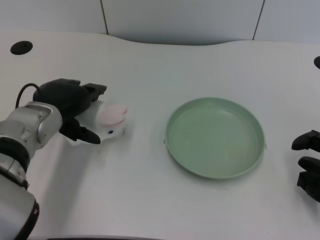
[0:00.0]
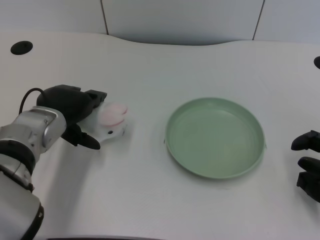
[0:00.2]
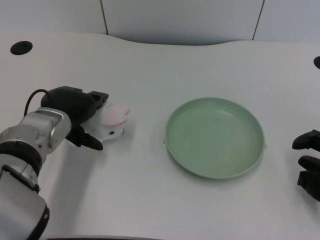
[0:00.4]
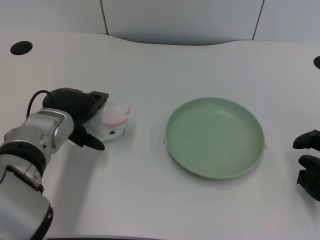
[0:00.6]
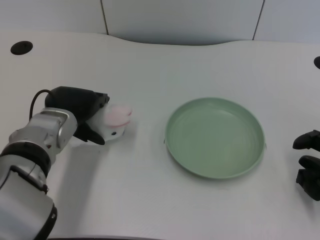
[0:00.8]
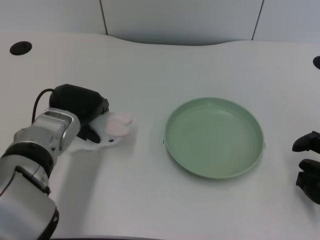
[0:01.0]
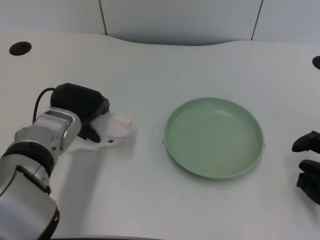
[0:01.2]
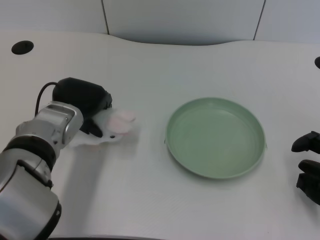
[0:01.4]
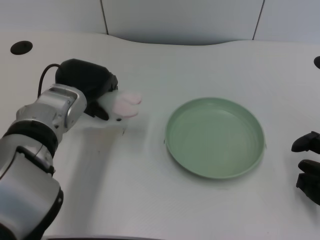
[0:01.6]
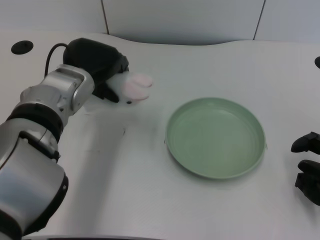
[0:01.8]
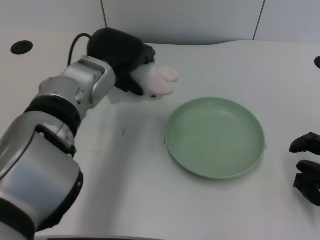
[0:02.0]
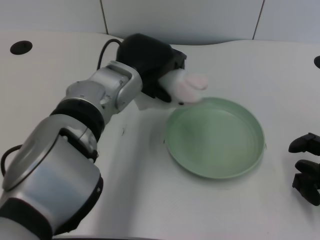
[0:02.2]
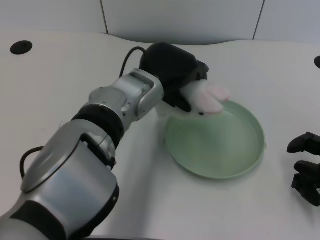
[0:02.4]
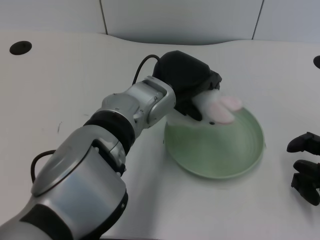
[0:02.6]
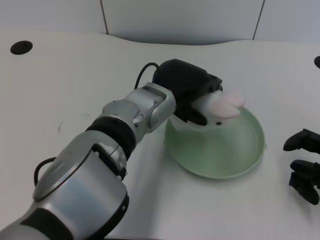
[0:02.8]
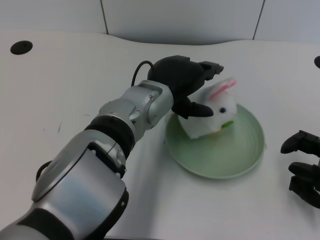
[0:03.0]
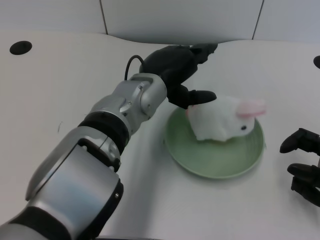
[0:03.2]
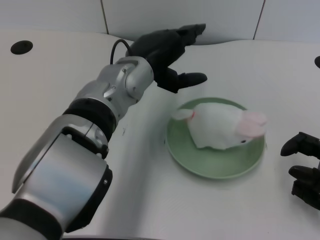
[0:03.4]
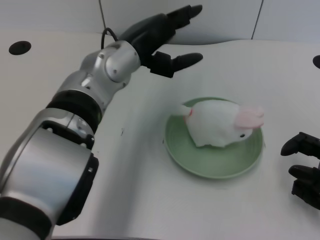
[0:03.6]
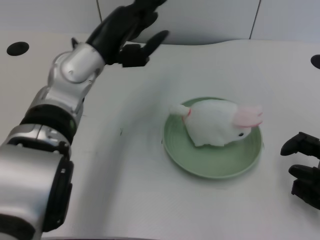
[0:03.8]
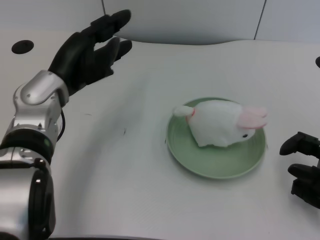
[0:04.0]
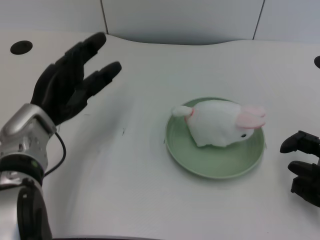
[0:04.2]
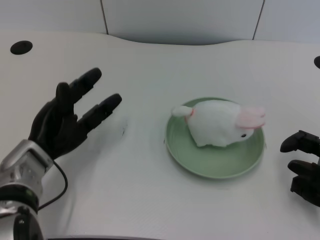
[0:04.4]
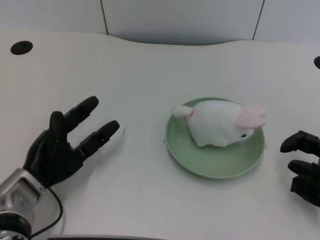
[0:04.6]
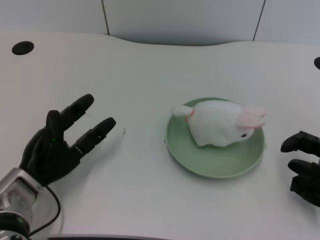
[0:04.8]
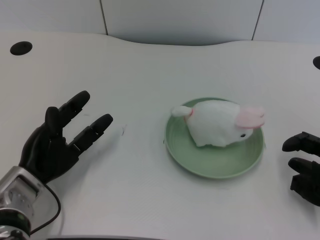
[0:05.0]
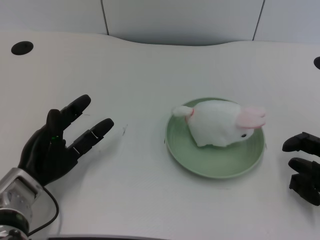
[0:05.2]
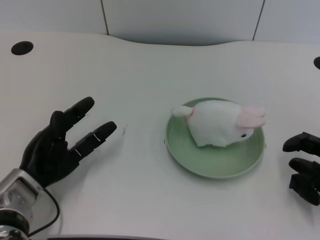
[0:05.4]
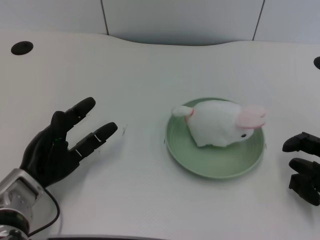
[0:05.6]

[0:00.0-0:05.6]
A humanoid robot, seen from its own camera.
Task of the whole recording: pick up the rabbit doll from the table and place it on the plate.
Step, 0:01.6 to 0:03.0: Place the rabbit doll into the plate with the left gripper.
0:00.0 to 0:01.4: The hands move only a little.
0:01.4 to 0:02.8: The left hand shifts about 15 cm to the right.
0:02.8 to 0:04.2: The left hand travels to the left by approximately 20 cm.
0:04.2 to 0:05.6: The left hand shifts some 10 cm downward and backward.

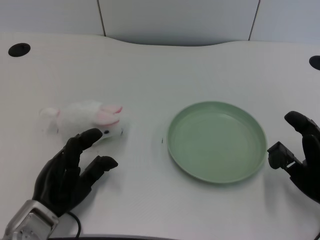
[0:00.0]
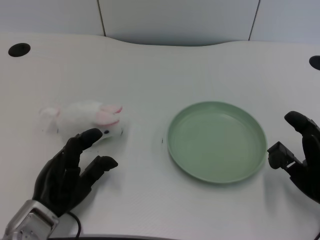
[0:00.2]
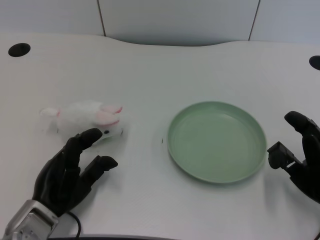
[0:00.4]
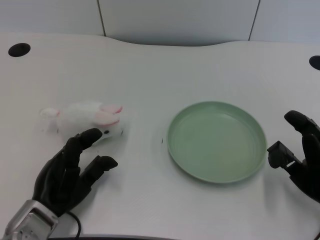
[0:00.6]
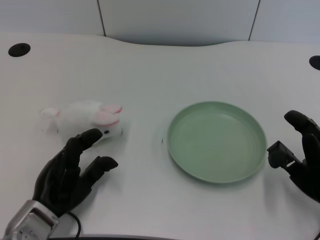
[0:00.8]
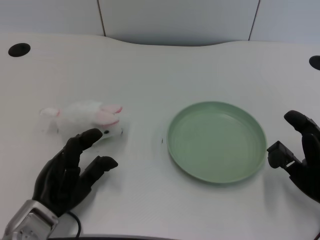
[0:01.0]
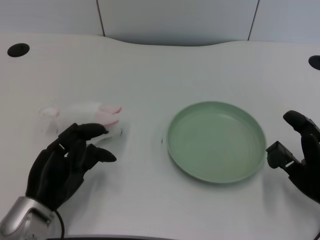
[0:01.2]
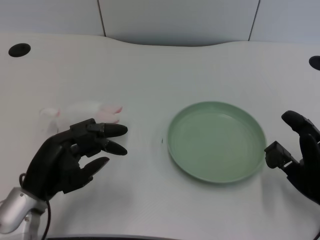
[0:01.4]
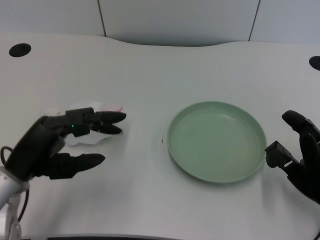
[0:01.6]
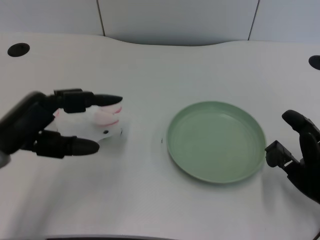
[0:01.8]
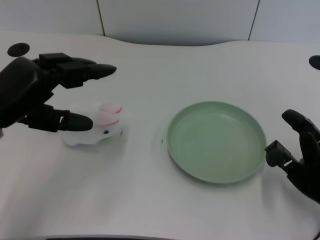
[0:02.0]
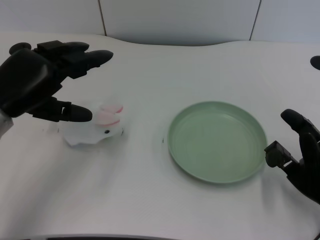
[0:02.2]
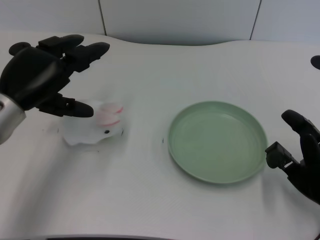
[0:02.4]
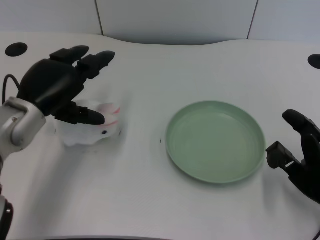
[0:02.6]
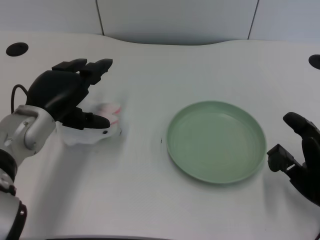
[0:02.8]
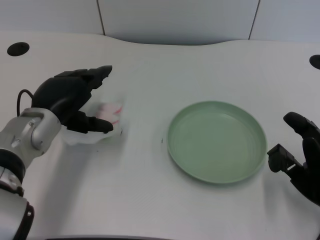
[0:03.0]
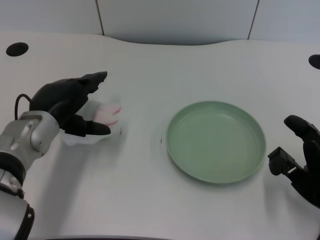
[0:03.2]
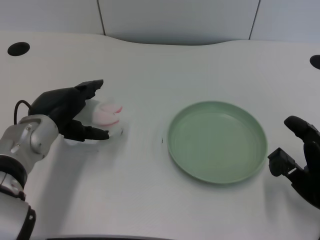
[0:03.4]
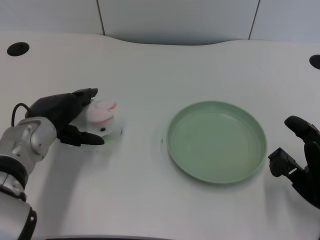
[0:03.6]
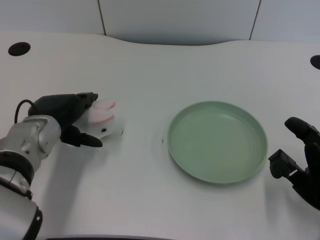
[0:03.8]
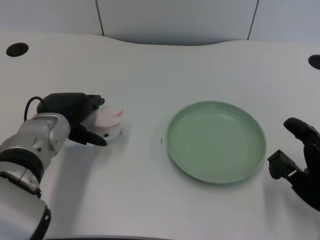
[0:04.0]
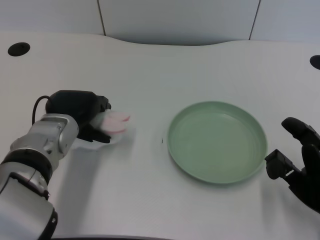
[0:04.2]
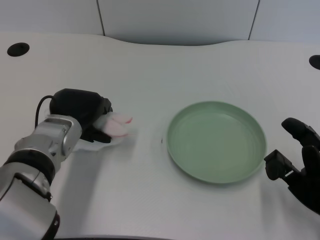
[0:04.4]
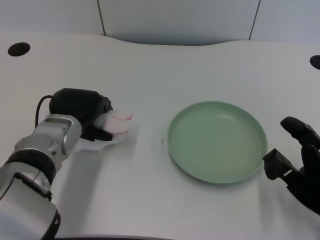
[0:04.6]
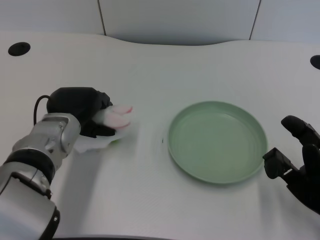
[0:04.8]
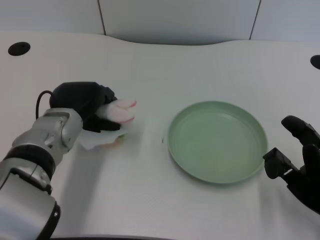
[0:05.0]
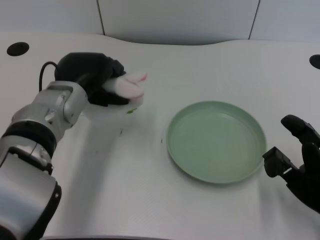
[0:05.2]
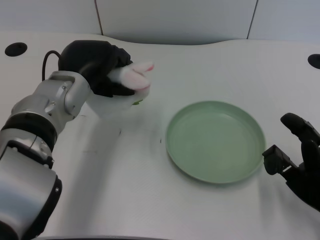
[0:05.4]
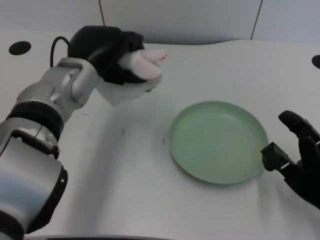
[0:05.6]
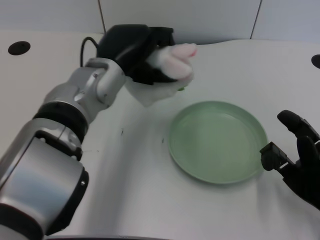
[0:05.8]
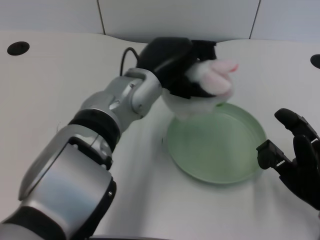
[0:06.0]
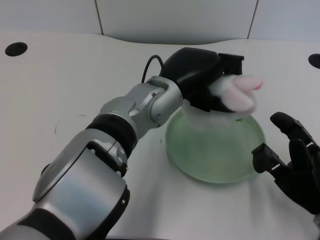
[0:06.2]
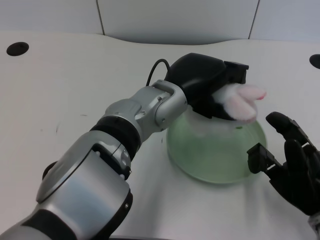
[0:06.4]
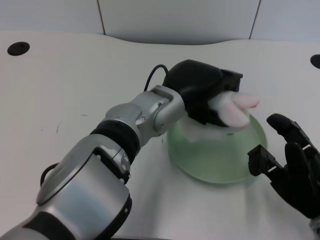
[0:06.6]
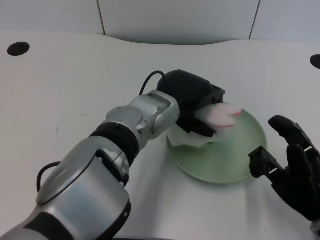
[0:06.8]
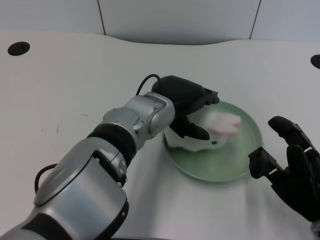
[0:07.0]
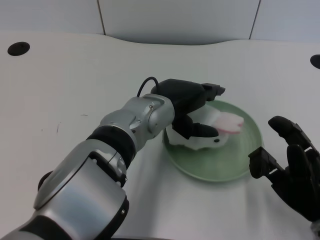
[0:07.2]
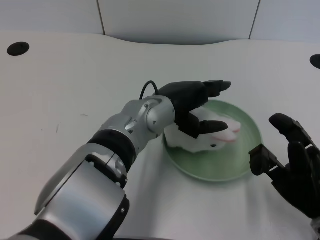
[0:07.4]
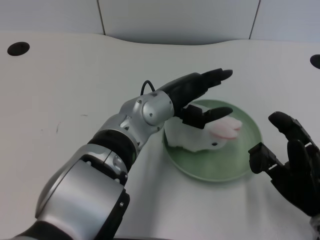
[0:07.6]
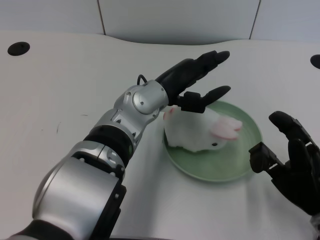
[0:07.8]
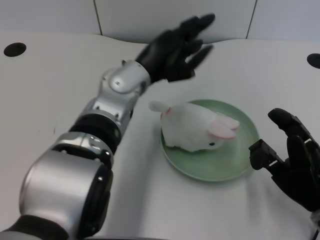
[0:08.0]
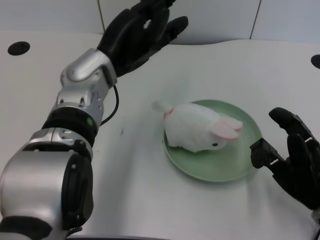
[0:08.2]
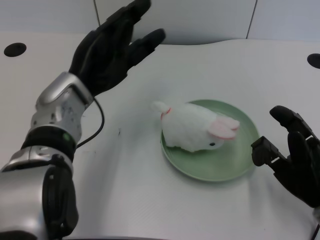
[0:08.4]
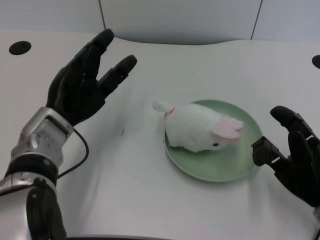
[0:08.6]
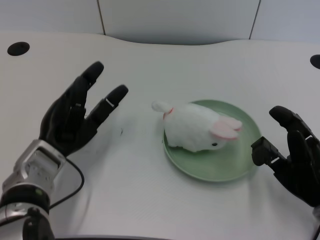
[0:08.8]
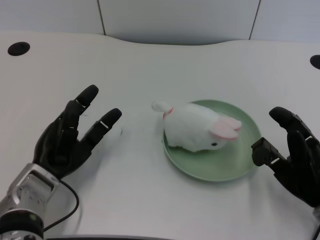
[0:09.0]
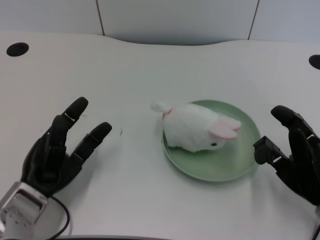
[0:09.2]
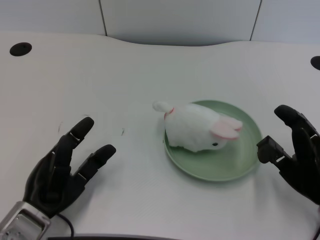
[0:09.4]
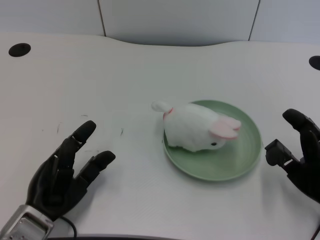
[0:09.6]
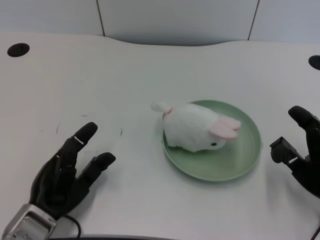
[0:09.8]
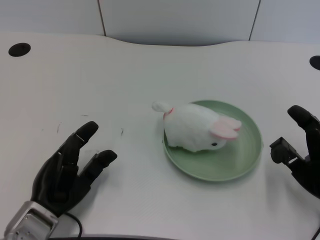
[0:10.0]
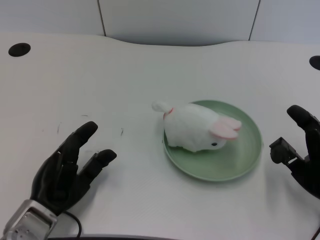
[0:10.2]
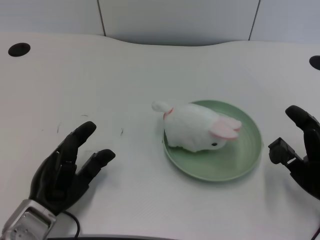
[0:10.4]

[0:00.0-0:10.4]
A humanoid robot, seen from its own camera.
Task of the whole recording: pick up the rabbit doll from the table and place it on the plate.
Step, 0:01.2 to 0:05.0: Grasp the rabbit doll with the left gripper.
Step, 0:05.2 to 0:07.2: Place the rabbit doll into the plate with the left gripper.
0:01.4 to 0:03.0: The left hand travels forward by roughly 10 cm.
0:03.0 to 0:04.4: The hands make only small movements.
0:04.4 to 0:06.0: The left hand shifts about 15 cm to the right and upward.
0:07.4 to 0:09.0: The left hand is displaced to the left and downward by approximately 20 cm.
0:09.0 to 0:10.4: The left hand moves approximately 5 cm.

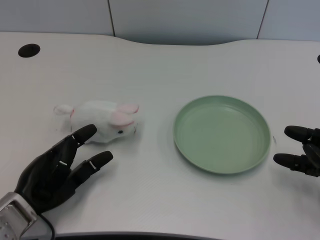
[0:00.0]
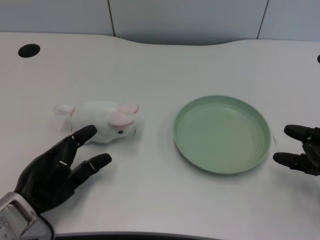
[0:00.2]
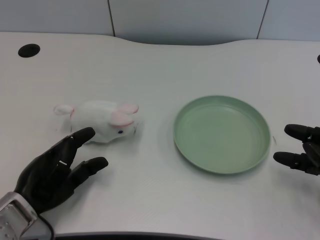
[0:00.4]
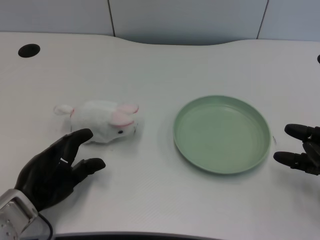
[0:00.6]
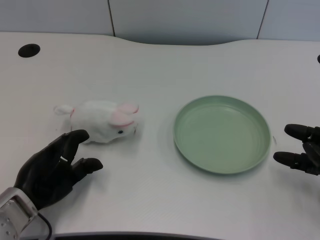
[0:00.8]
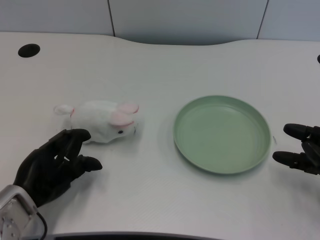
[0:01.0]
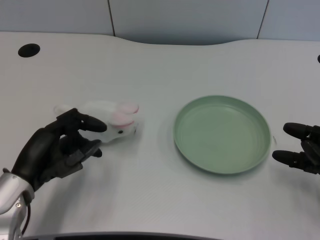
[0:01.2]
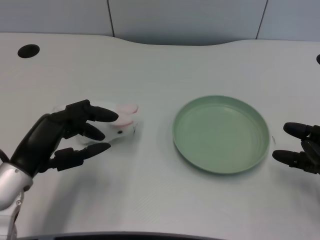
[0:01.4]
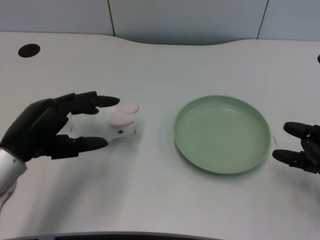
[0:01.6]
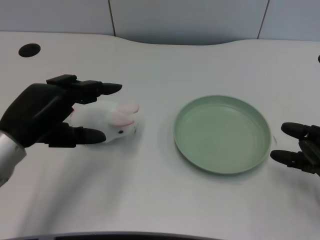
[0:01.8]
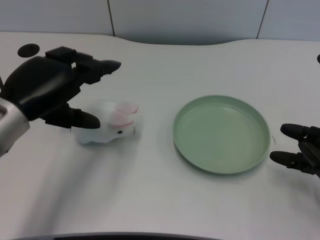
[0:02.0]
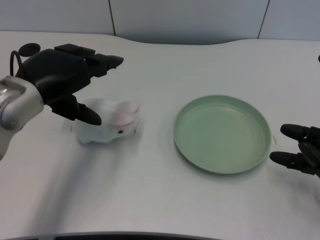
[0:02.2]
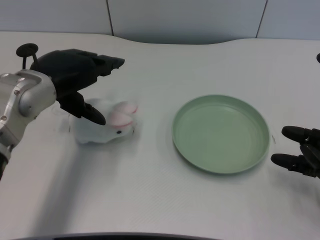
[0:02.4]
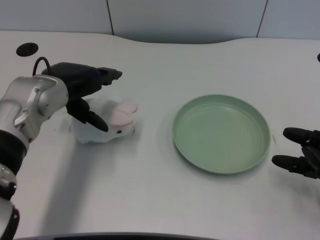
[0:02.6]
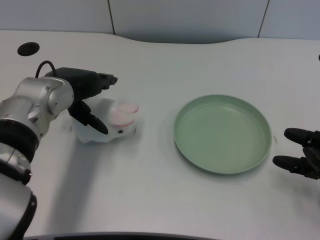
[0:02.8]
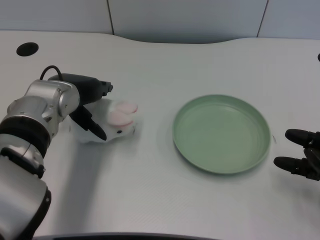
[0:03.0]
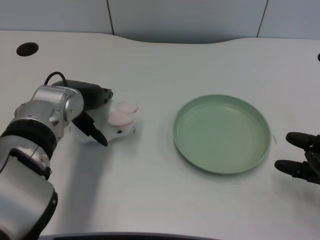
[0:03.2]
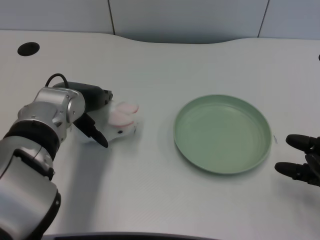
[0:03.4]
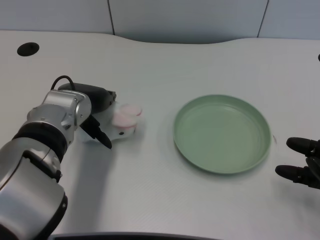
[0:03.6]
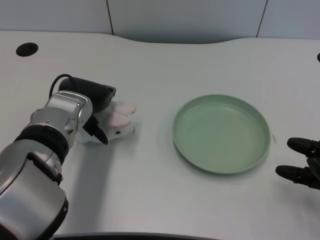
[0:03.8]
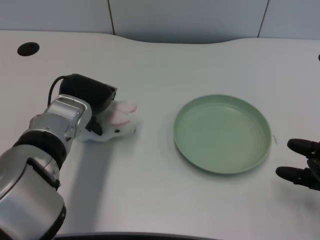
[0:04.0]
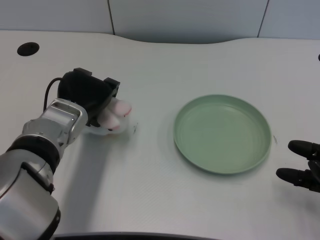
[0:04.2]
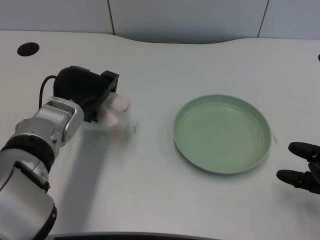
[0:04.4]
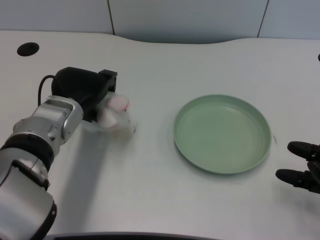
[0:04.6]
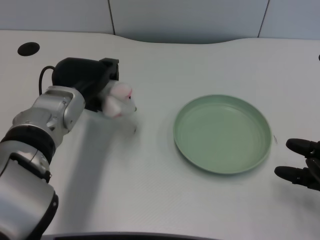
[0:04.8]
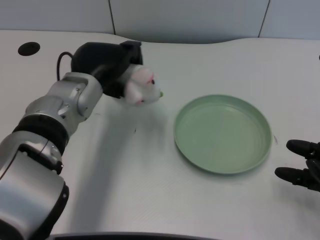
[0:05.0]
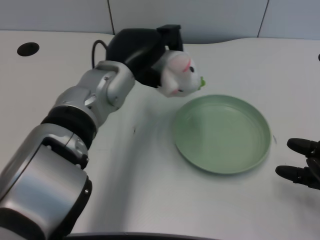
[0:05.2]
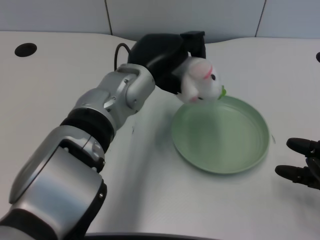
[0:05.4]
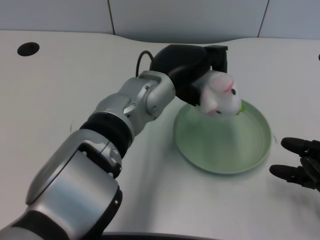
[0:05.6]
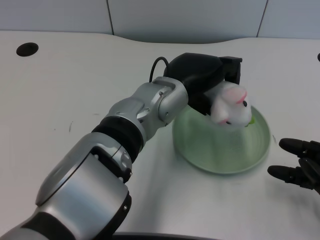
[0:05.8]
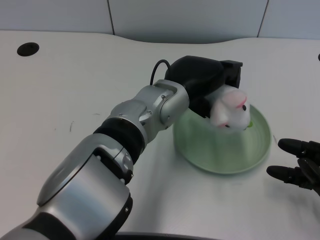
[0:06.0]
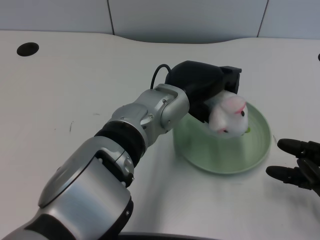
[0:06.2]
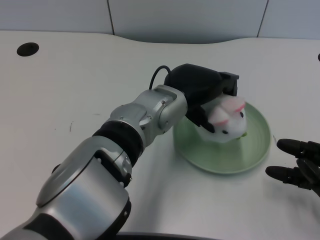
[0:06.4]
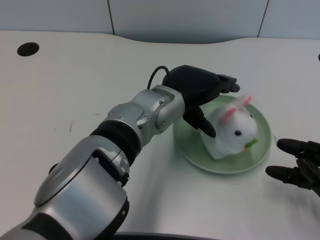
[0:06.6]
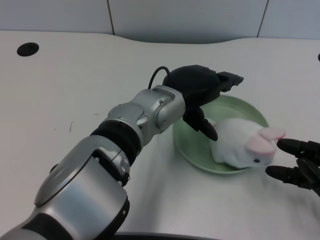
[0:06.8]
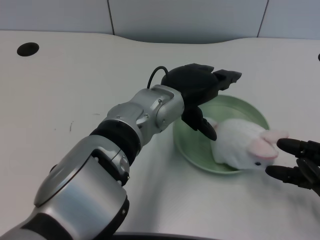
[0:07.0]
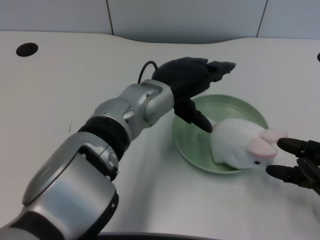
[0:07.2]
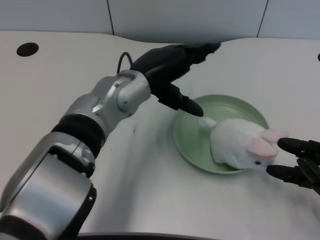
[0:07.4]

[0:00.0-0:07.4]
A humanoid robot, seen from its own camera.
Task of the whole recording: pick up the rabbit doll from the table and place it on the plate.
Step, 0:01.0 to 0:04.6: Grasp the rabbit doll with the left gripper.
Step, 0:04.8 to 0:06.8: Place the rabbit doll into the plate with the left gripper.
0:01.4 to 0:03.0: The left hand is displaced forward and to the right by about 15 cm.
0:04.4 to 0:06.0: The left hand shifts some 15 cm to the right.
0:06.0 to 0:07.4: The left hand moves to the left, roughly 5 cm.
